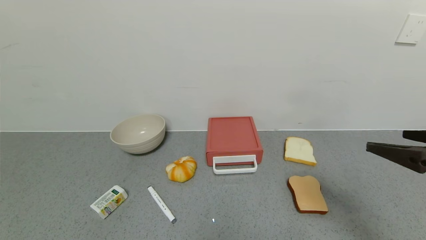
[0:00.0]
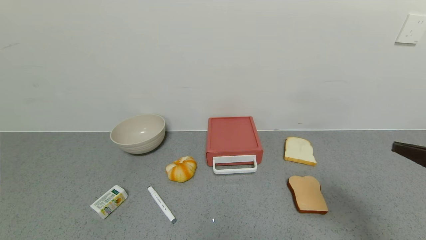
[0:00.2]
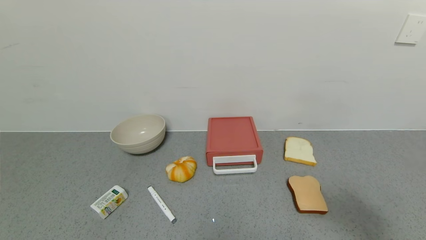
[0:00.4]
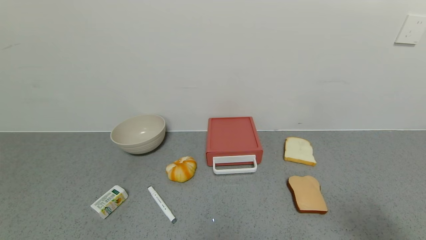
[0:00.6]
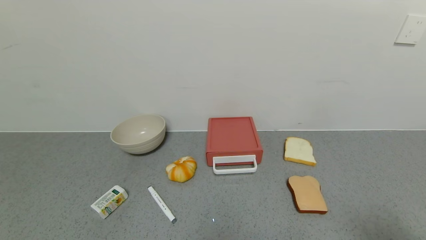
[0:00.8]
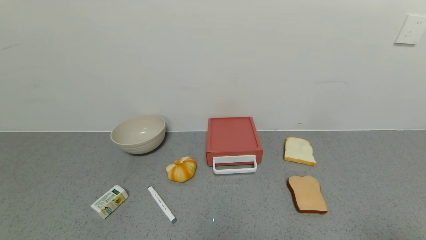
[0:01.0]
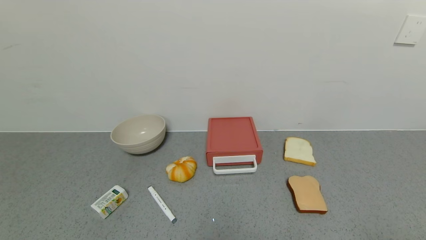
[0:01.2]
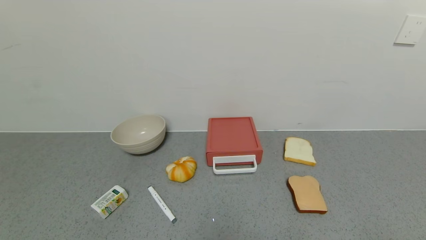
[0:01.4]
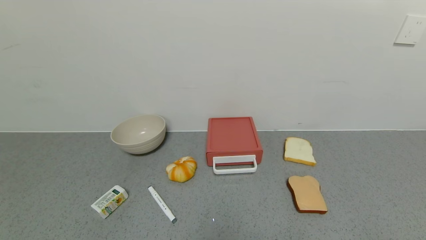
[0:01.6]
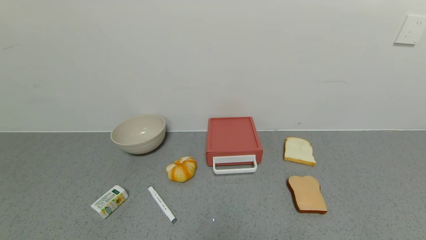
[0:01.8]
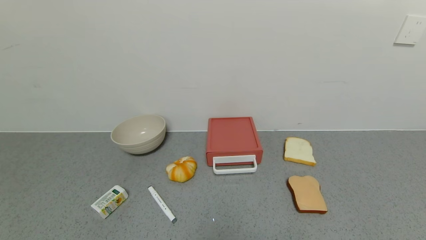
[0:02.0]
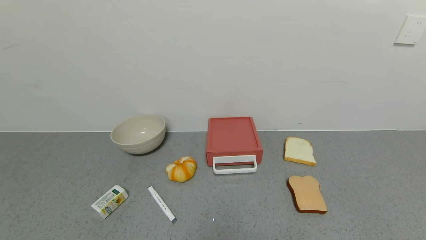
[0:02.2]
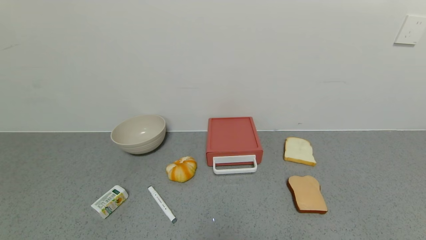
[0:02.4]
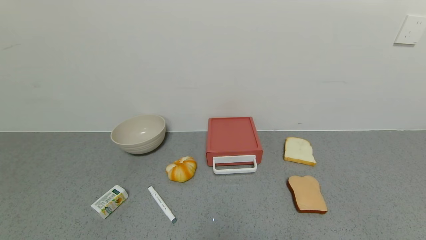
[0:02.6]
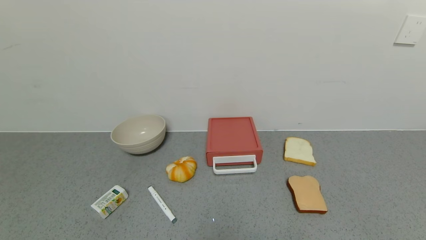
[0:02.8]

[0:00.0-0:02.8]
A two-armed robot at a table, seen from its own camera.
Task of the whole recording: use the gripper to open the drawer and close the red drawer.
0:00.0 to 0:01.4: The right gripper heads backward, covering about 20 cm.

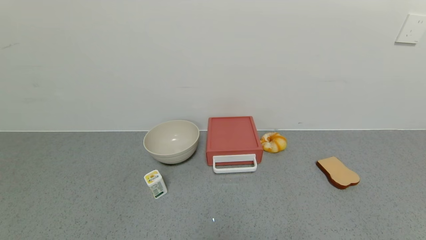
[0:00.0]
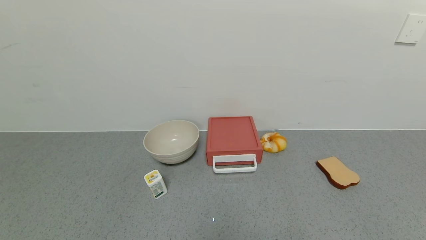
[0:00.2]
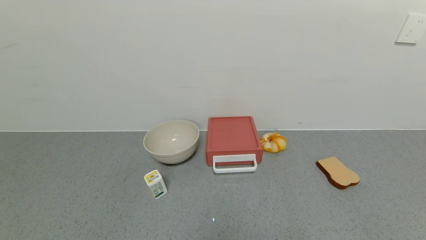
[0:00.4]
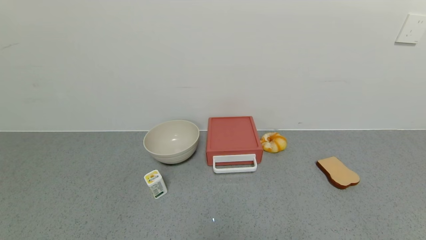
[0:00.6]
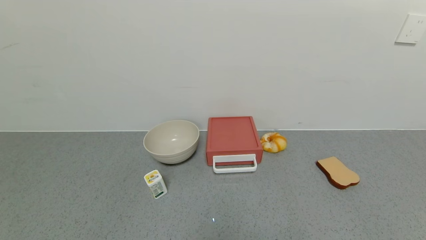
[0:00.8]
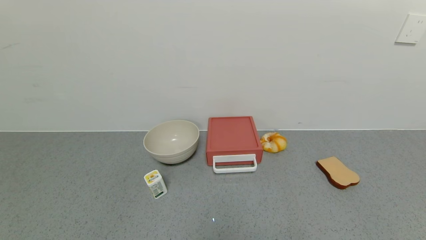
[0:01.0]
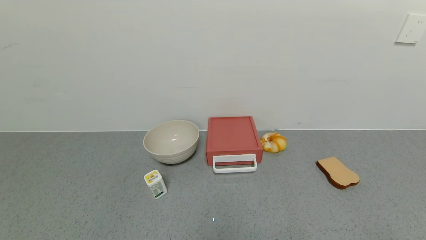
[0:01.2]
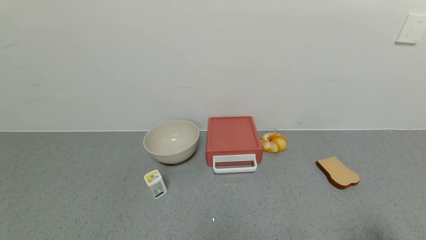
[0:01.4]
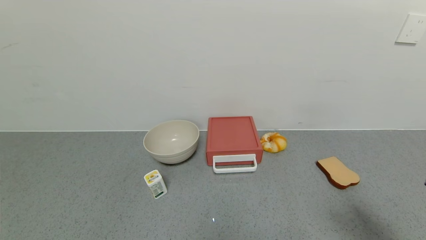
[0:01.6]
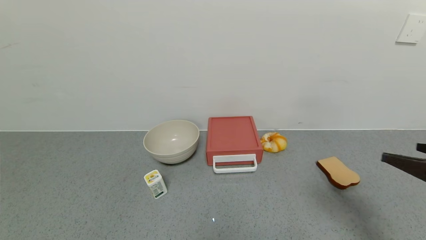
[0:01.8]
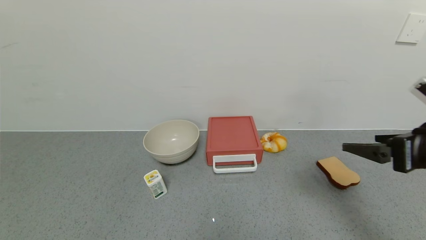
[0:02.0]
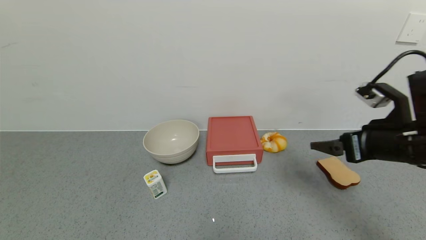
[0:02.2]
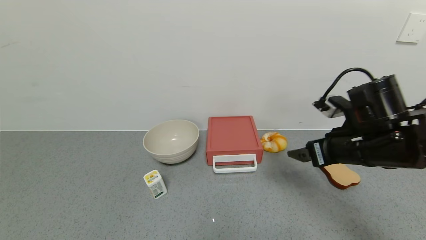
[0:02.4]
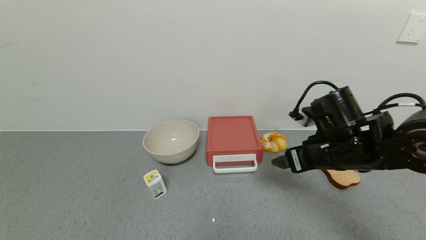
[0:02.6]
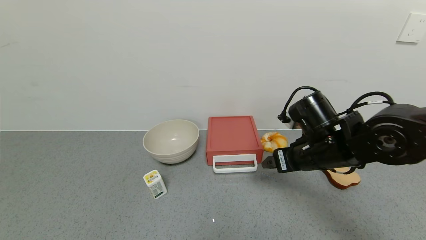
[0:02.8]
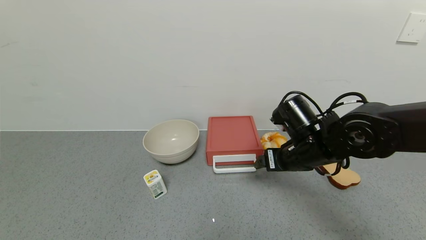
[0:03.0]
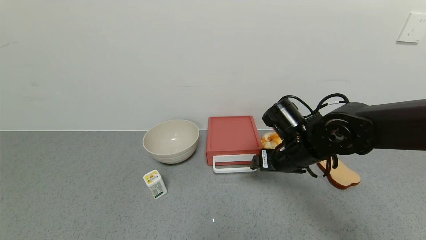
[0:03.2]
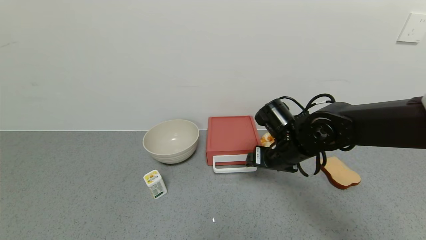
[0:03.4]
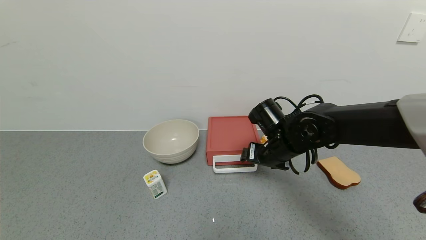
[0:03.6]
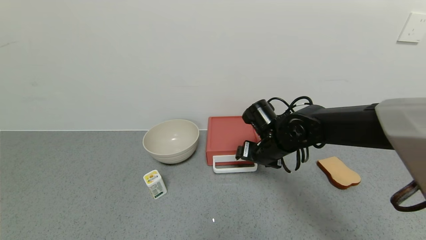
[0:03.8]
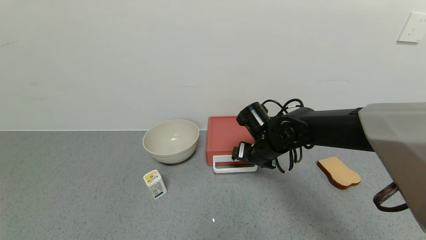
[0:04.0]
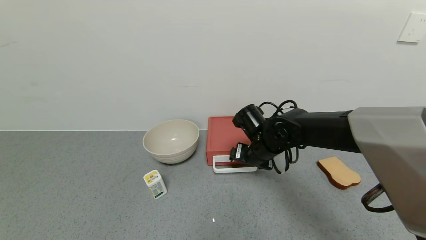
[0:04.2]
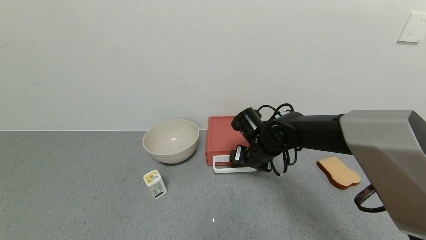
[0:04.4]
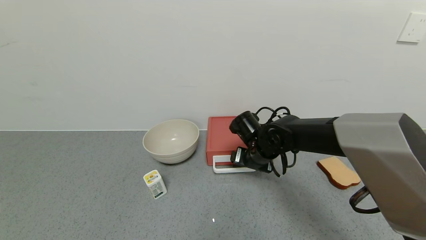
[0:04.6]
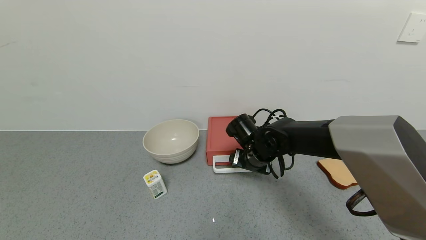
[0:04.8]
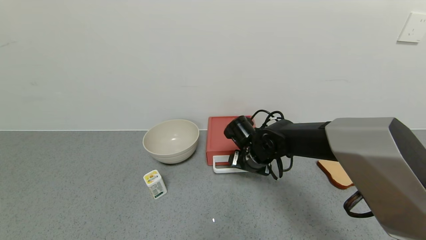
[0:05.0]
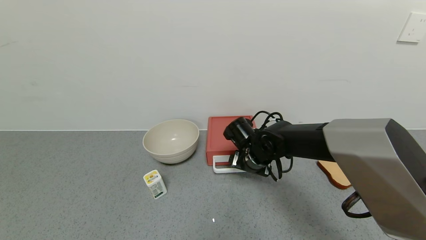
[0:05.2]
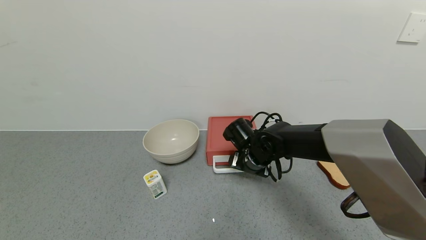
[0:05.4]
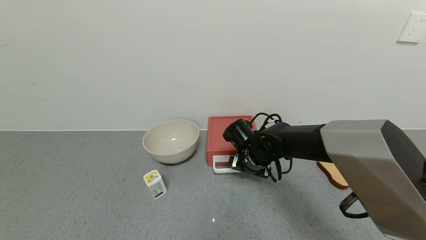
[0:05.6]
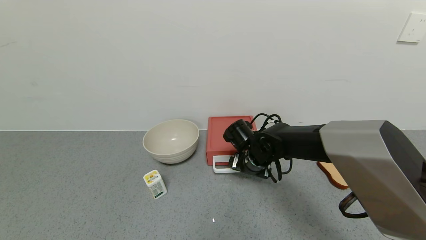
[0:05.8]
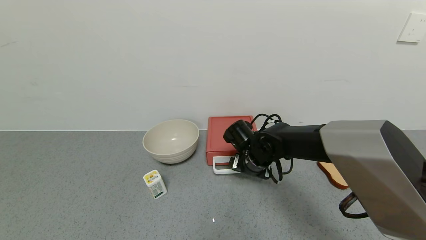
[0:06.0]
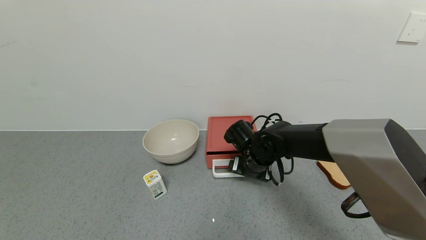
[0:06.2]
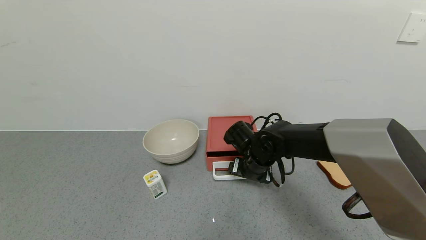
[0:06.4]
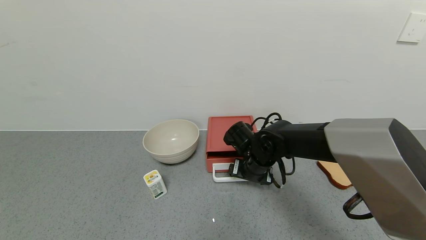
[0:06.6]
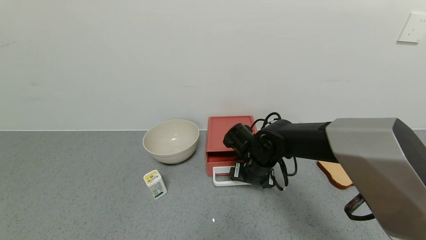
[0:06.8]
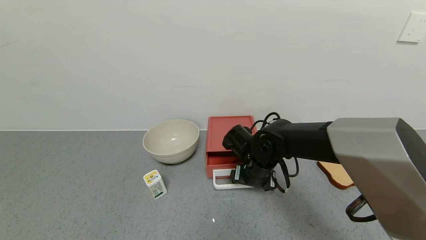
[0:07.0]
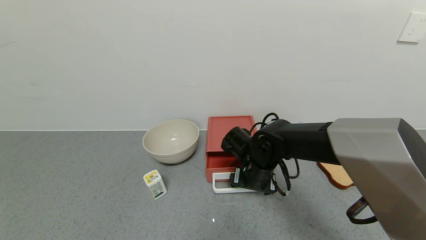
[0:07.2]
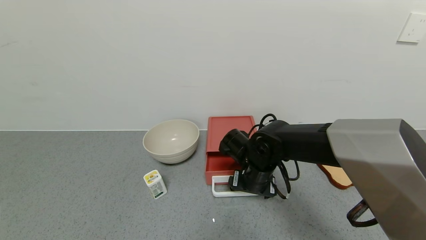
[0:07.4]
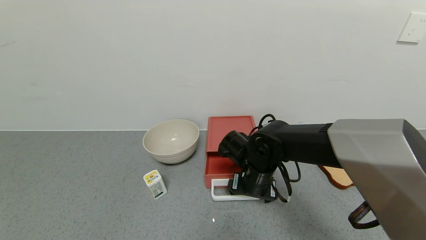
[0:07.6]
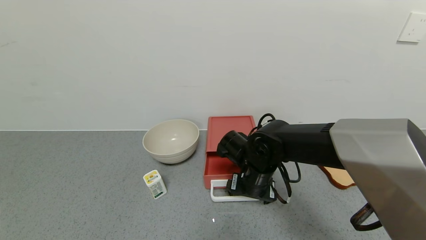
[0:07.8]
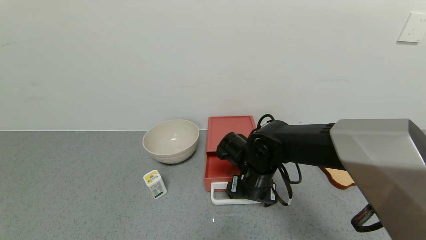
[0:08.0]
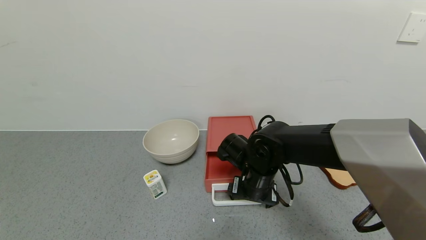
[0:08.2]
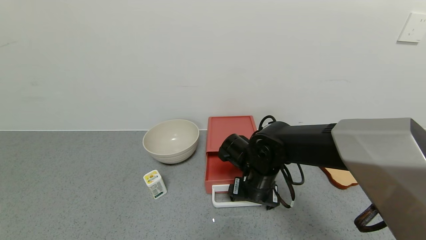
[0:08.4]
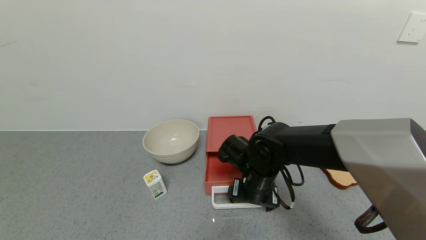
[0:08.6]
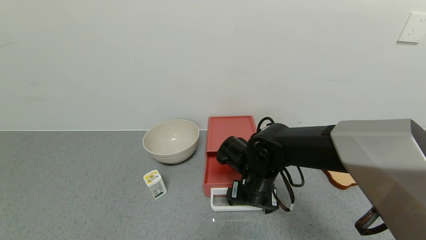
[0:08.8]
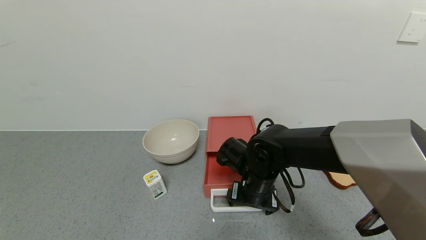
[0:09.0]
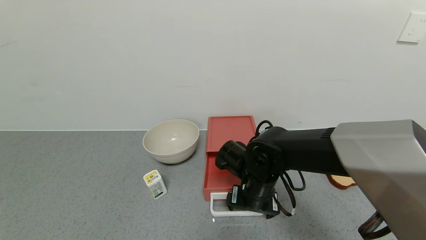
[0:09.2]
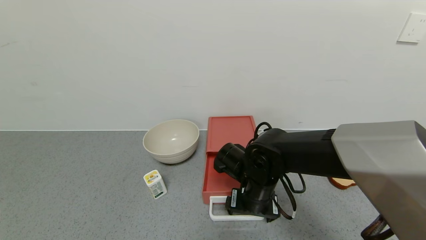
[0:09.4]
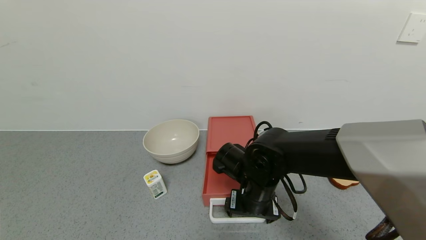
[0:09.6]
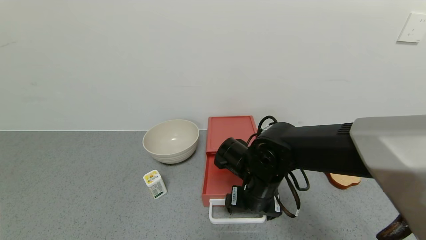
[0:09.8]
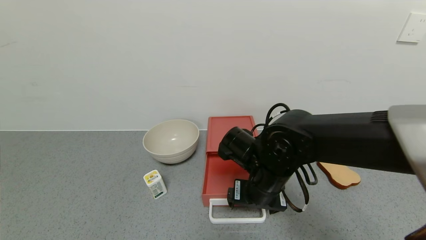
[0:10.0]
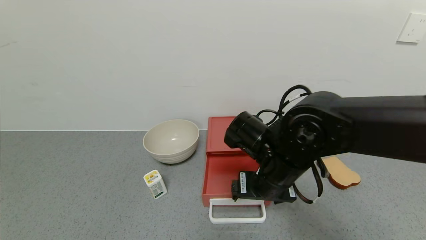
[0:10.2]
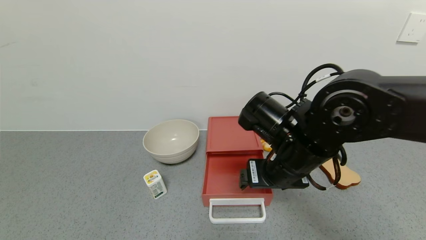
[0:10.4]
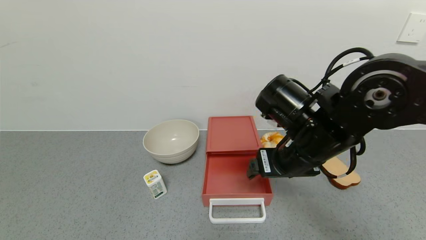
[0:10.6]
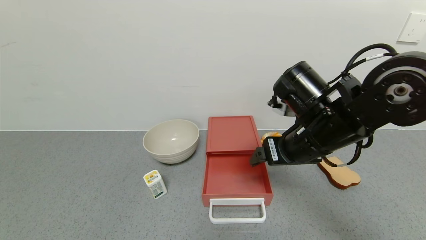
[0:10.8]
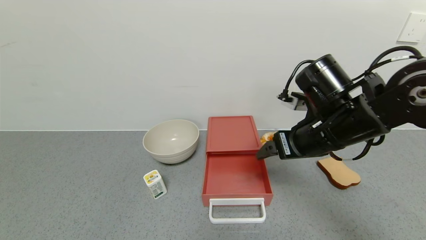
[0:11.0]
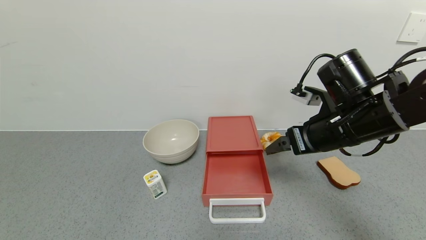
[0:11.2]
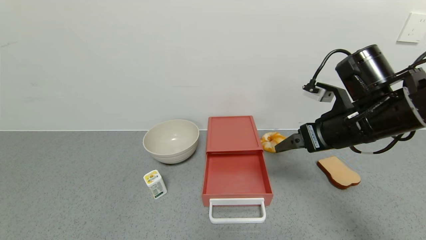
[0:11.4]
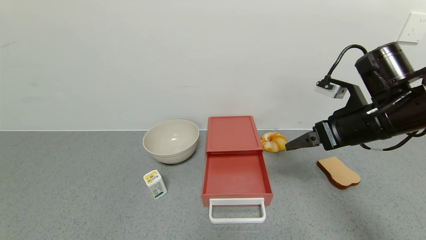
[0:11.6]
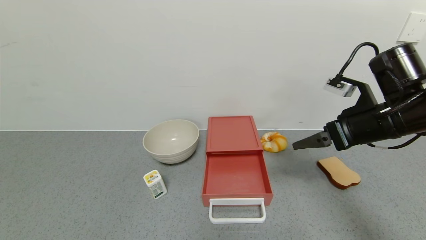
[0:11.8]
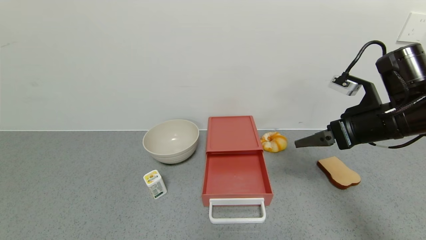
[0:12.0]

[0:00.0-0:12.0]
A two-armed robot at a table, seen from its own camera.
Task of the whole recording: use the gripper to open the drawer and close the red drawer.
Step, 0:00.0 to 0:10.2: Open the red drawer with the right gripper.
0:00.0 to 0:01.6: The right gripper heads upward and forward, covering some 20 cm.
0:01.6 to 0:03.0: The right gripper moves forward and to the left, some 30 cm.
0:03.0 to 0:04.4: The right gripper heads forward, to the left and downward, covering about 10 cm.
0:04.4 to 0:06.0: The grippers move only a little.
0:06.0 to 0:07.6: The right gripper goes roughly 5 cm backward.
0:07.6 to 0:09.0: There are only small adjustments of the grippers.
0:09.0 to 0:10.4: The right gripper travels upward by approximately 10 cm.
0:10.4 to 0:12.0: The right gripper is displaced to the right by about 15 cm.

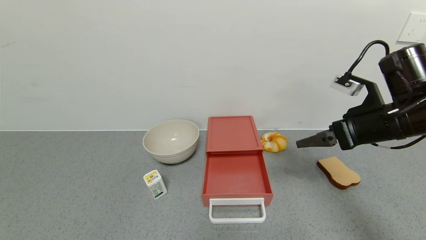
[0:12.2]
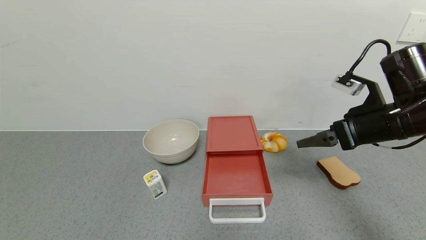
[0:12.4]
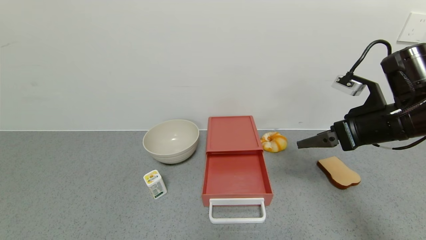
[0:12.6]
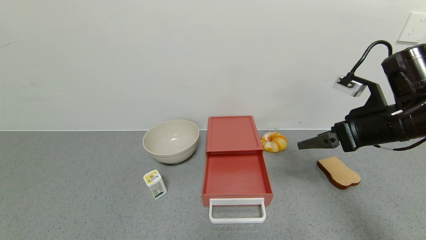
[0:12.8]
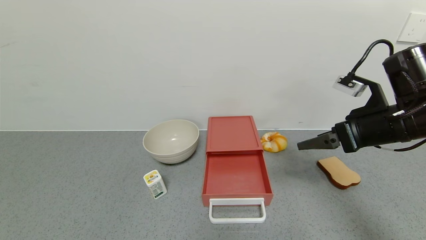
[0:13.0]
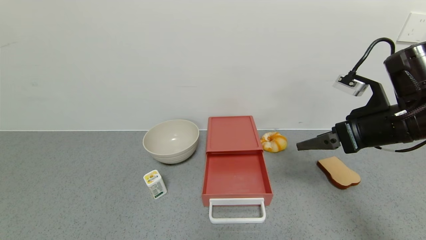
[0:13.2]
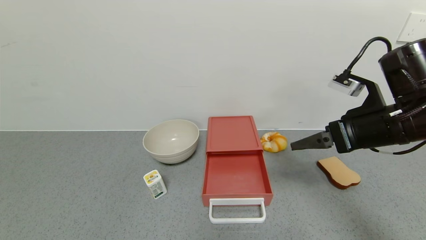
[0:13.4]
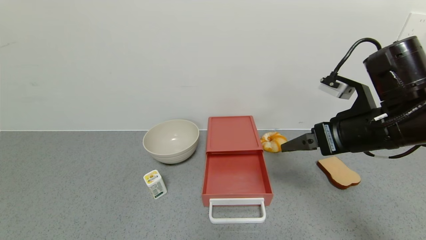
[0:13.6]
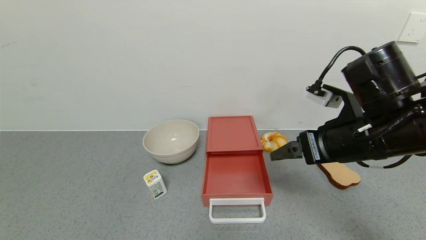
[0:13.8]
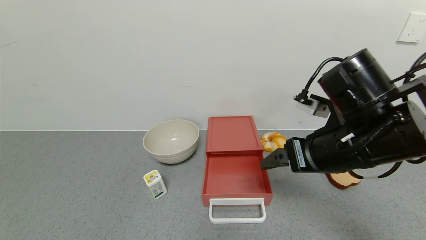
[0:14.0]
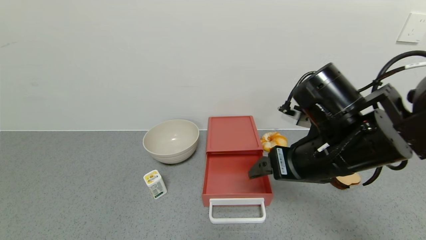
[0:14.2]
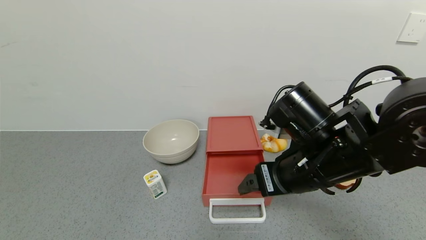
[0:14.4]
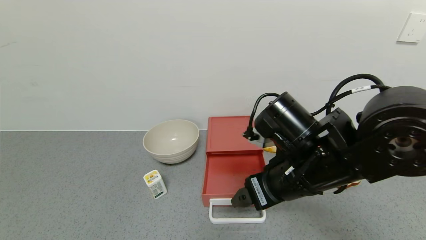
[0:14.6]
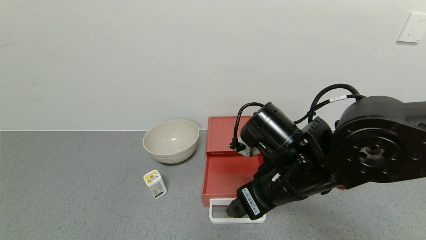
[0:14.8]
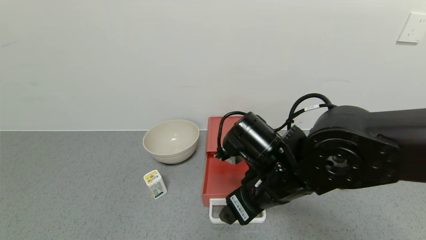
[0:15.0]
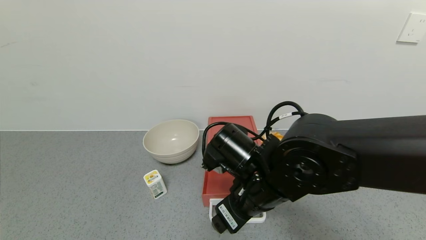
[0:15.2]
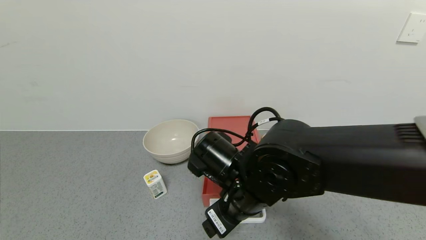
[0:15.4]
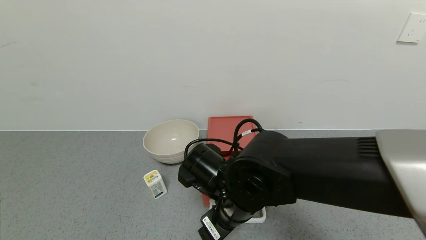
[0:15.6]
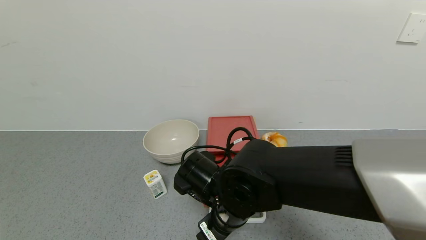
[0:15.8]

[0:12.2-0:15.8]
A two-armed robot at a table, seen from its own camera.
Task of the whole recording: use the gripper to open the drawer and close the red drawer.
0:12.2 to 0:14.0: The right gripper moves to the left and backward, some 10 cm.
0:14.0 to 0:15.8: The right gripper moves to the left and downward, about 20 cm.
